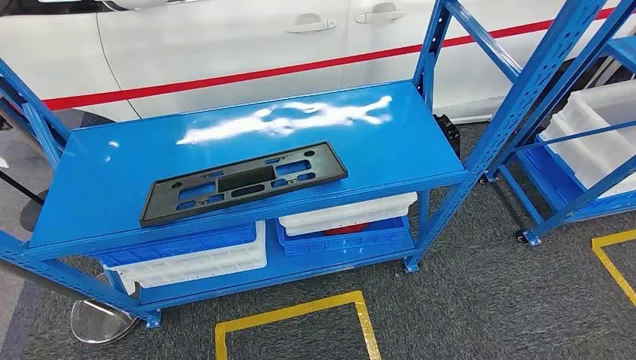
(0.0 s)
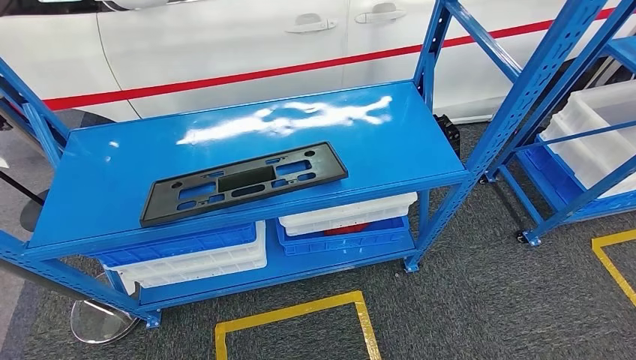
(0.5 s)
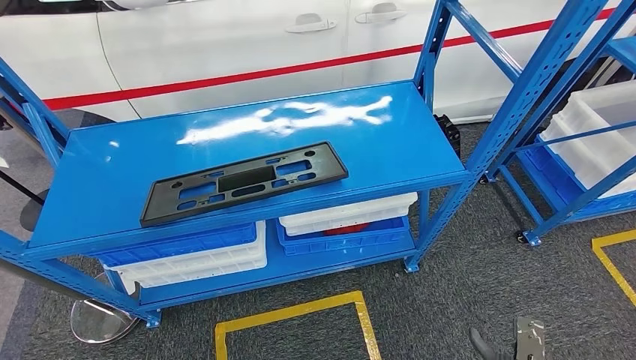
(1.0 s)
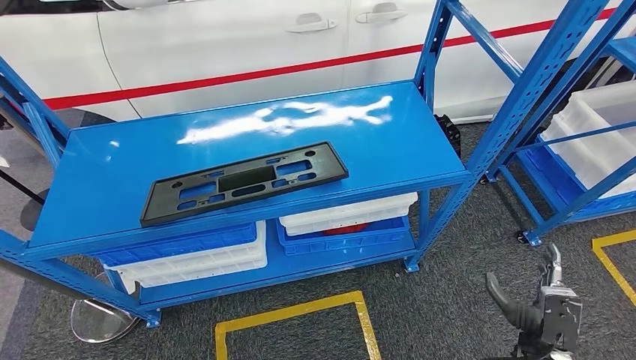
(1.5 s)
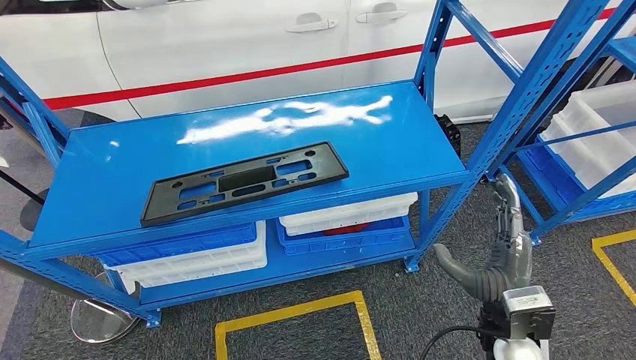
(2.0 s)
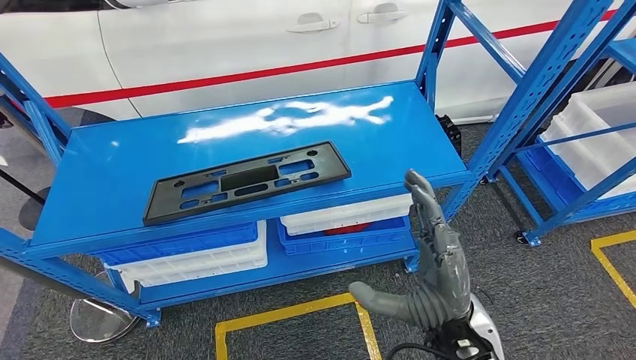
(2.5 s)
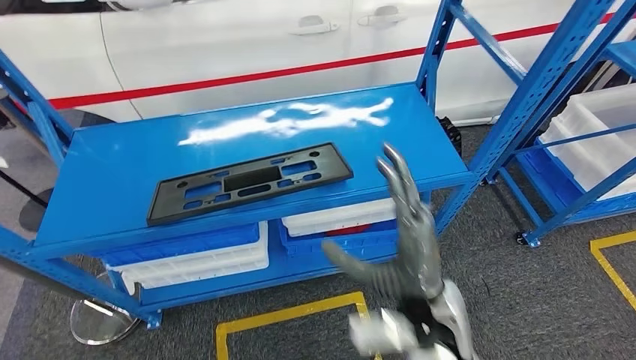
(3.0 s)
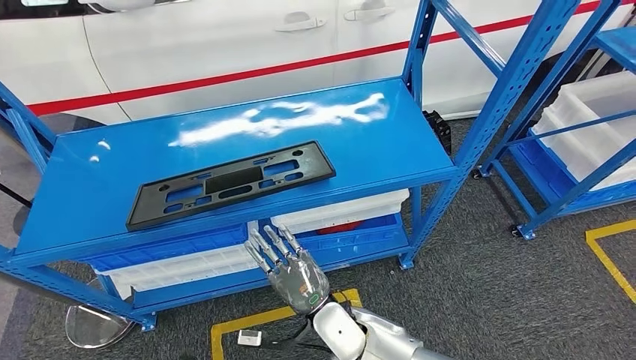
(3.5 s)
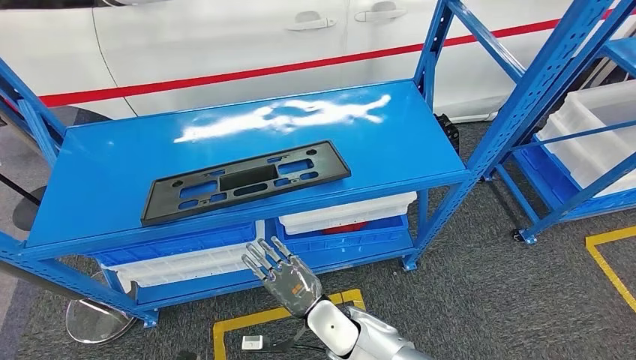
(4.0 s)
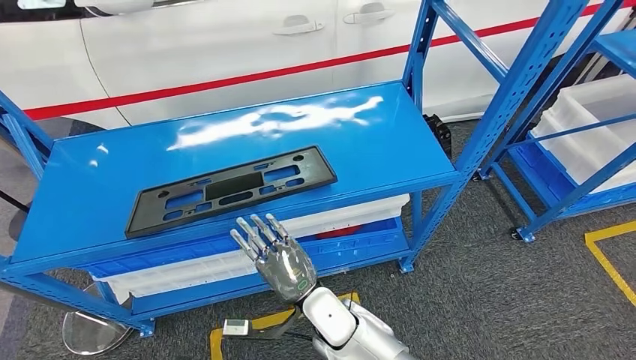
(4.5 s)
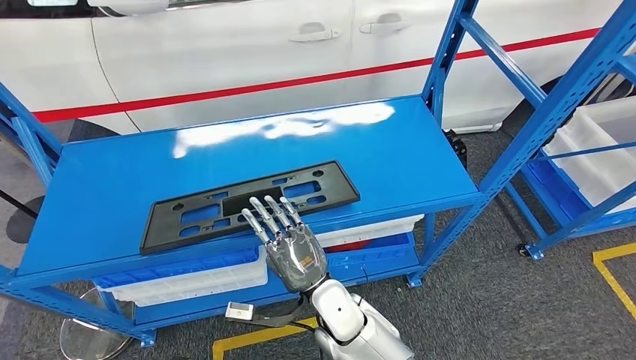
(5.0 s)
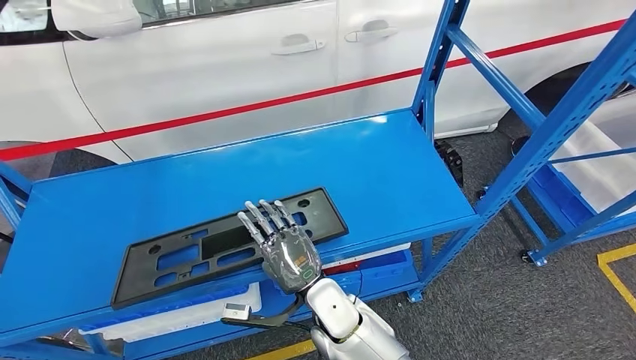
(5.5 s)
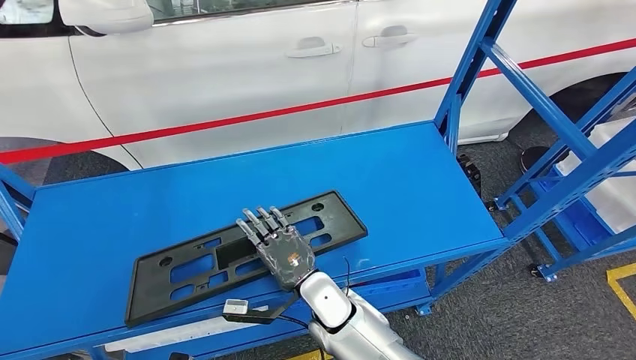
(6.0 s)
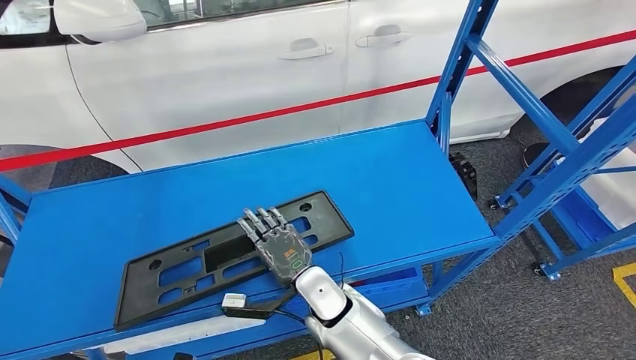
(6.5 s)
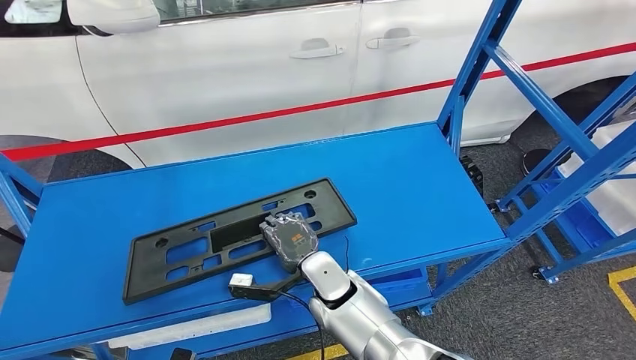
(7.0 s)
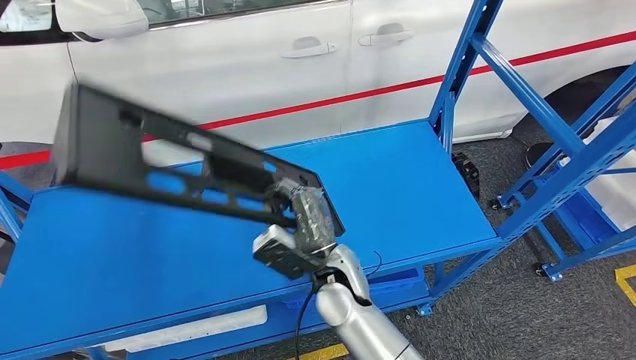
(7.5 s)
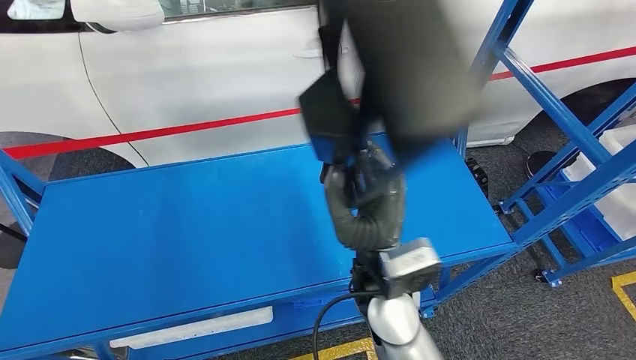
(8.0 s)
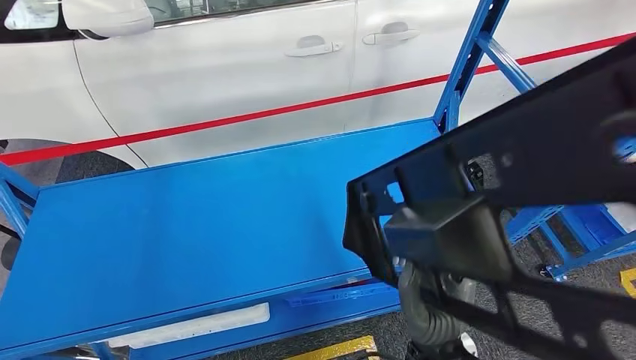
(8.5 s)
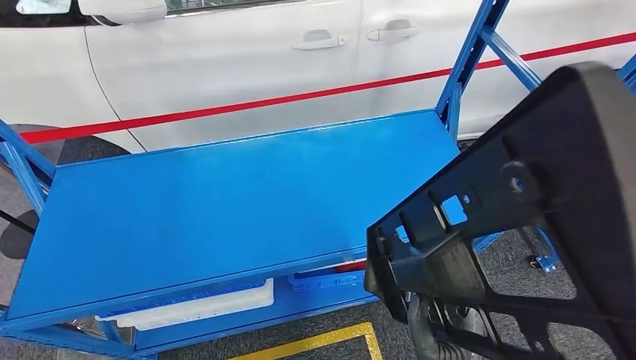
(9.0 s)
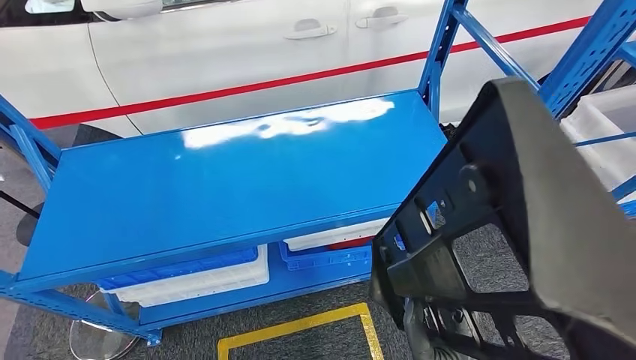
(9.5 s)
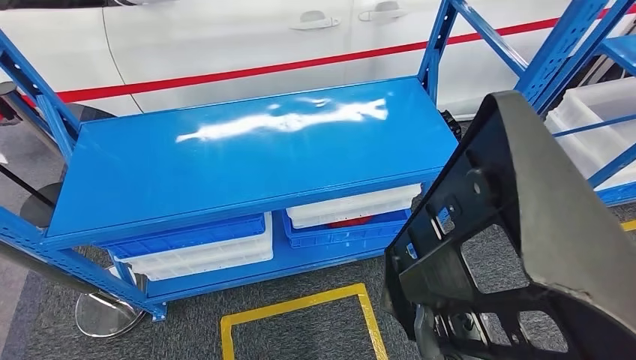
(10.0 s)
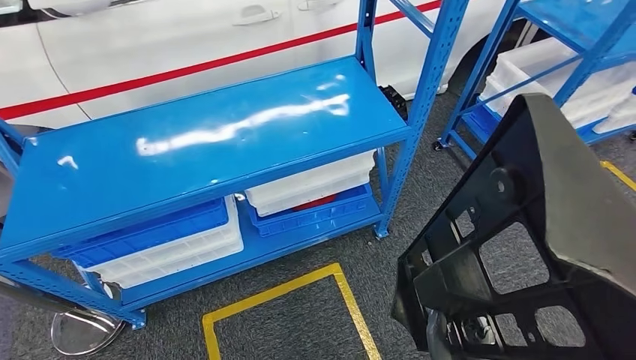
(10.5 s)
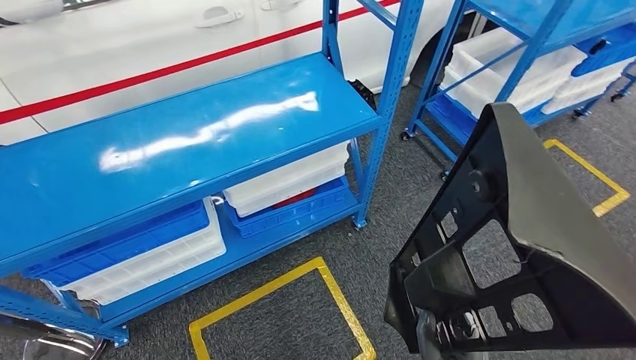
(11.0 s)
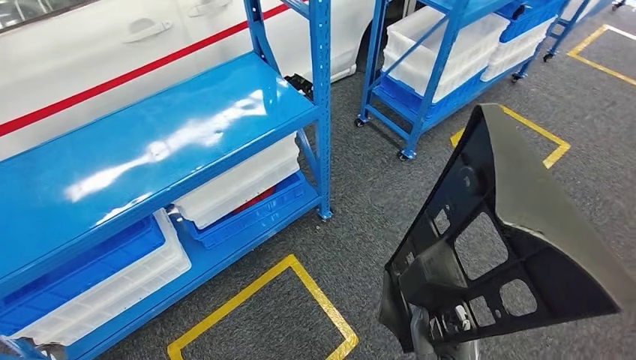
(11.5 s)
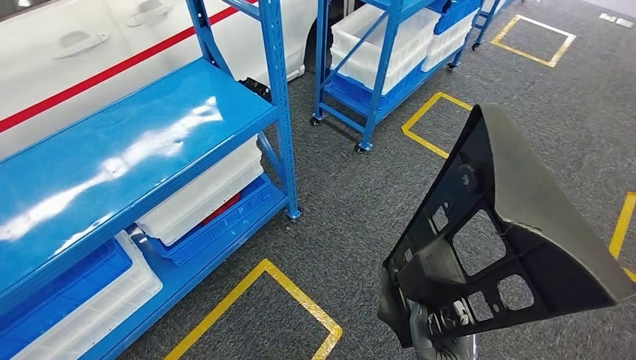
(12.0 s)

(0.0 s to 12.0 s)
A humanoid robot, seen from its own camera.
Step, 0.0 s - 8.5 s: Pick up the large material from the shelf.
2.0 s - 4.0 s: The right hand goes approximately 30 cm to the left and downward.

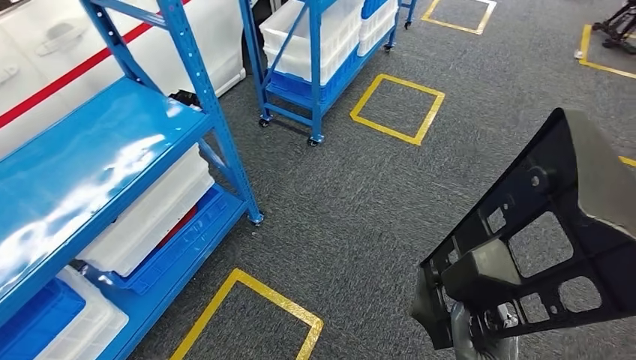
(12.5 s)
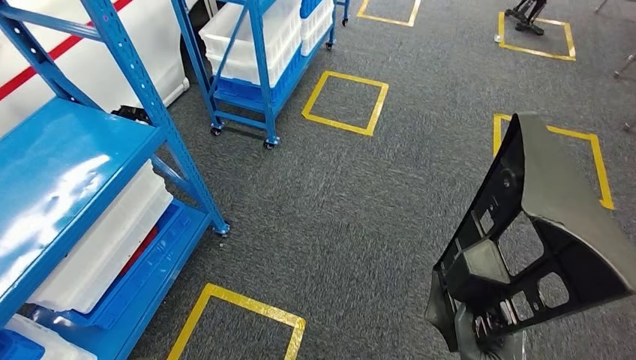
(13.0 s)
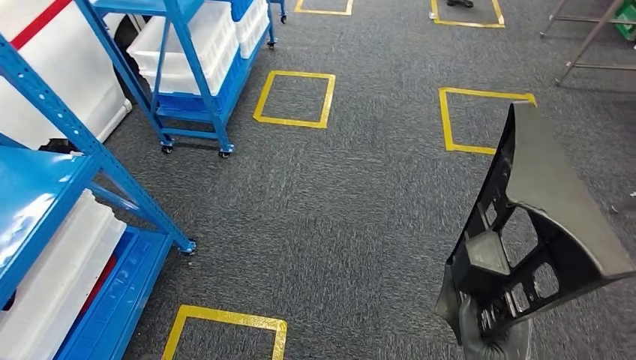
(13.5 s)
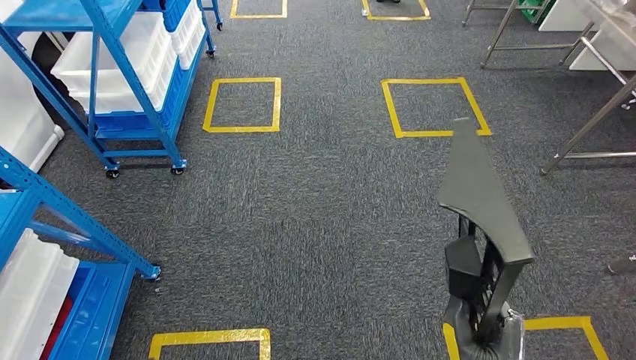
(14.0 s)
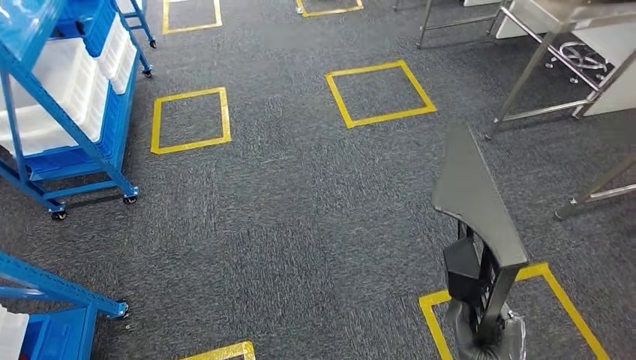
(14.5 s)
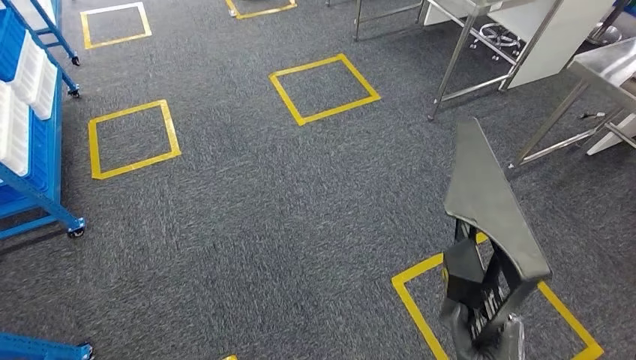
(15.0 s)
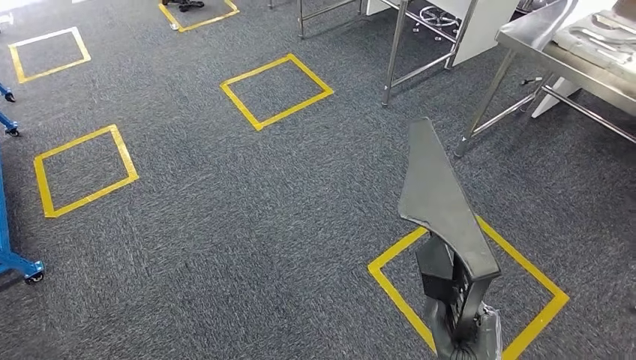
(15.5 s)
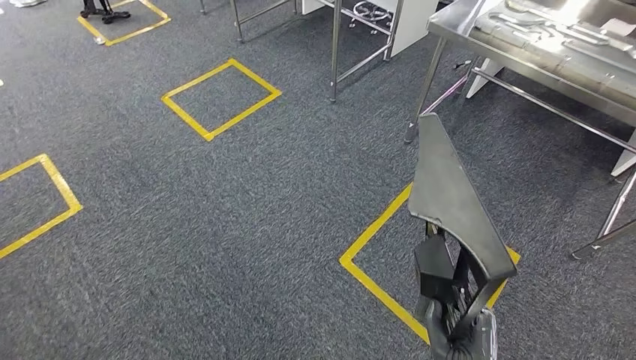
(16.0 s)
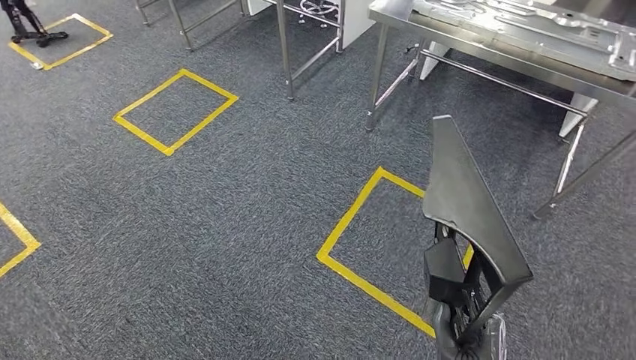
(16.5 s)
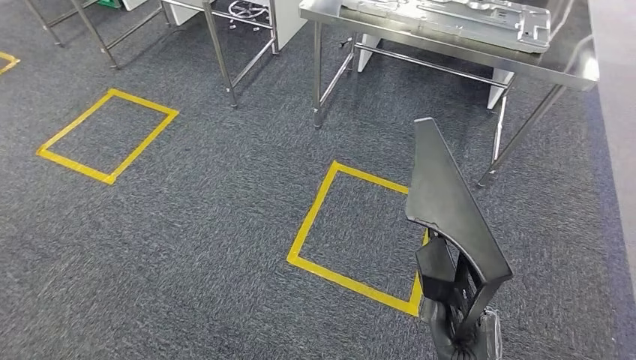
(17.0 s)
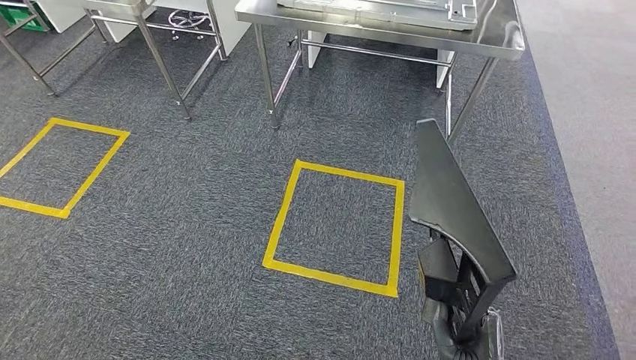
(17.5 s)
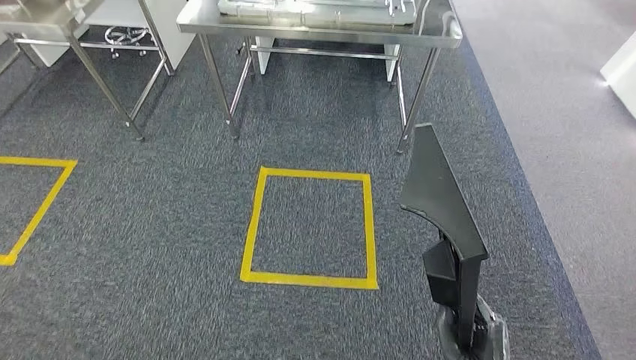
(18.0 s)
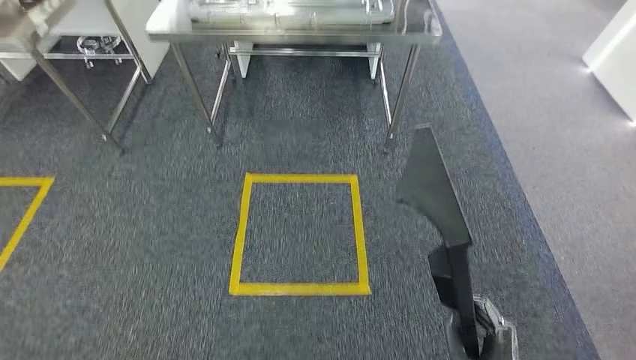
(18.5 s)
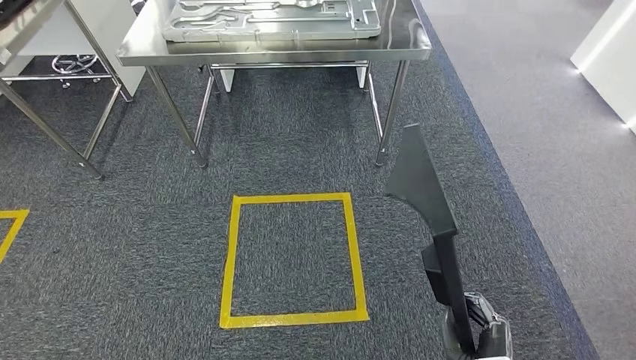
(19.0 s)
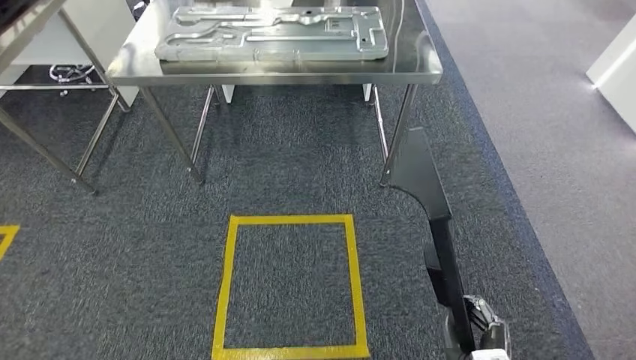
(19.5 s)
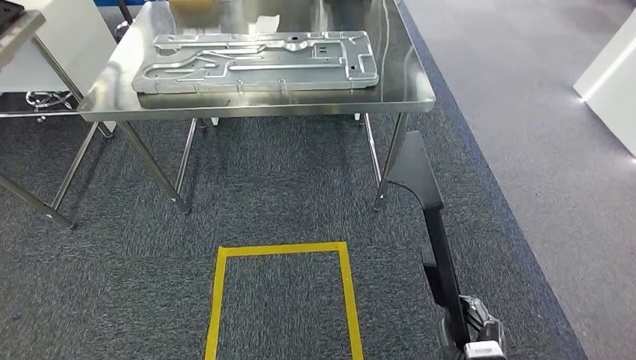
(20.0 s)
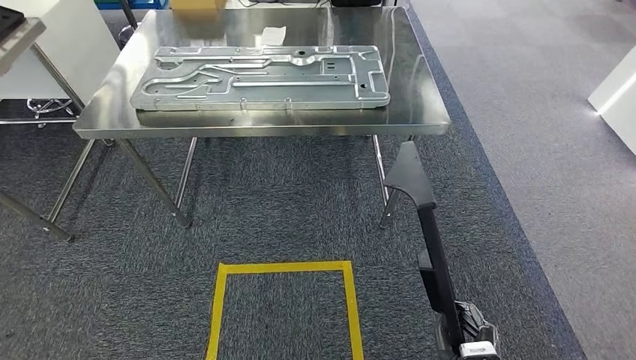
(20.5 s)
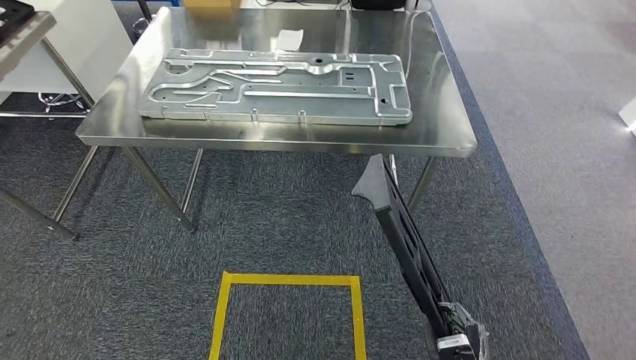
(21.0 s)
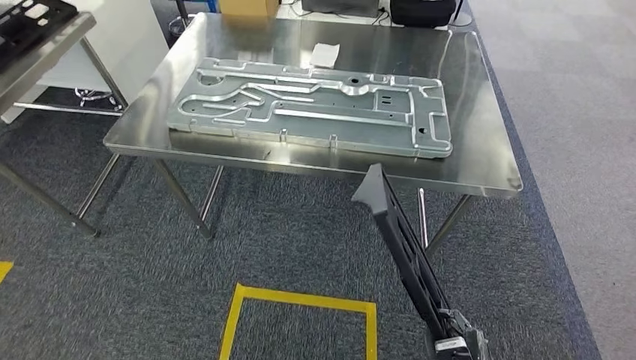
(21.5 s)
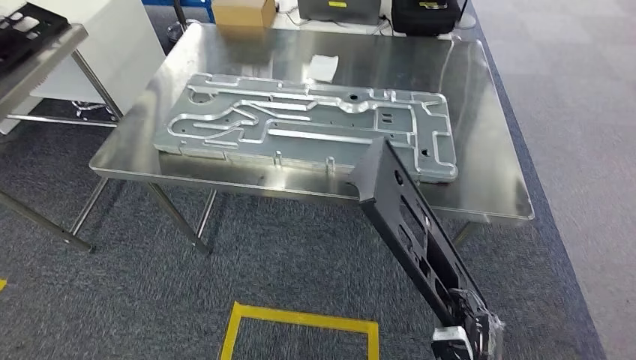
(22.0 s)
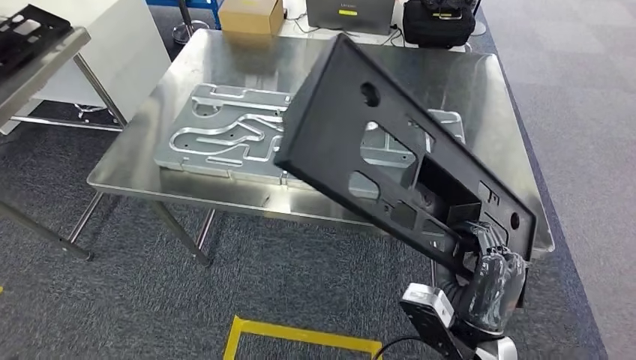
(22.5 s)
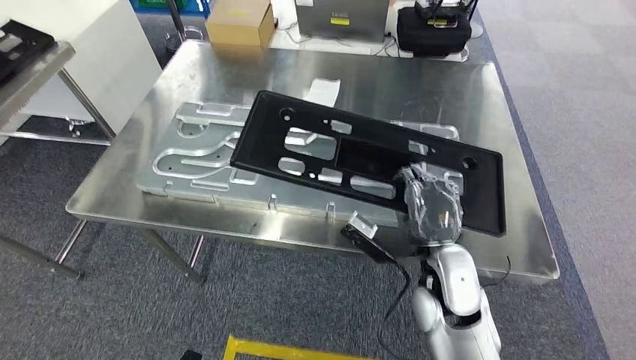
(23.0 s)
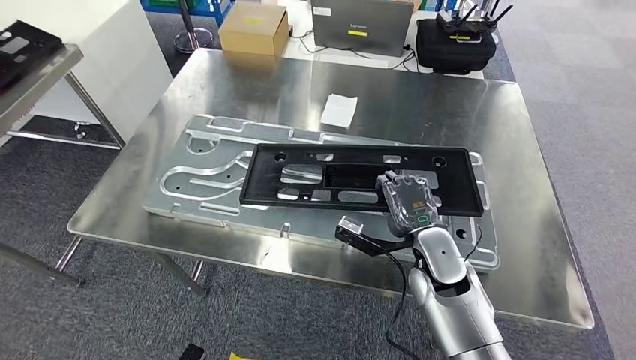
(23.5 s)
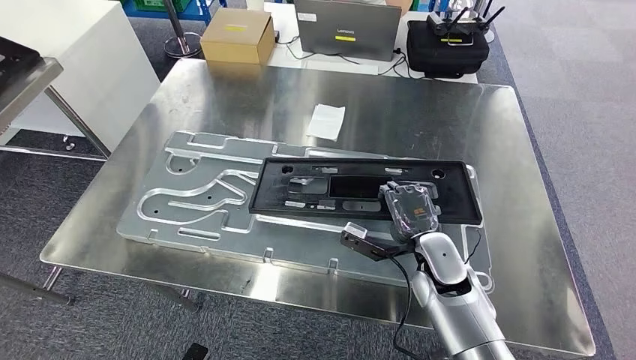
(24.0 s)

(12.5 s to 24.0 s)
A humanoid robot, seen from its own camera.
Step, 12.5 s - 22.5 s: Move the large material to the workbench.
